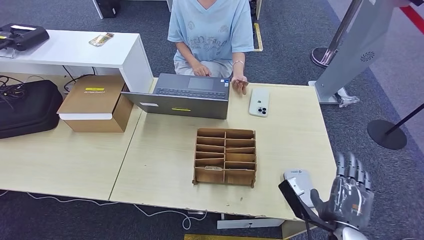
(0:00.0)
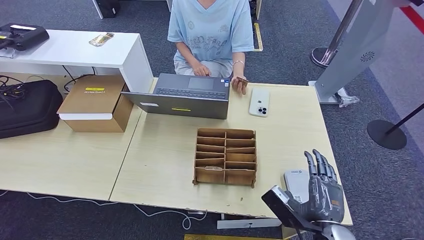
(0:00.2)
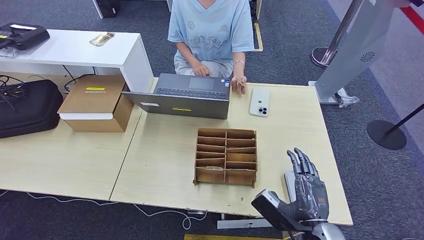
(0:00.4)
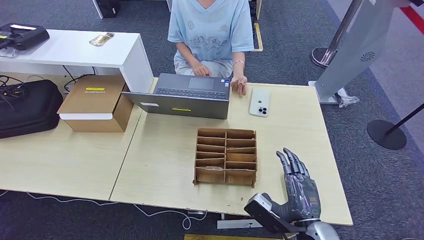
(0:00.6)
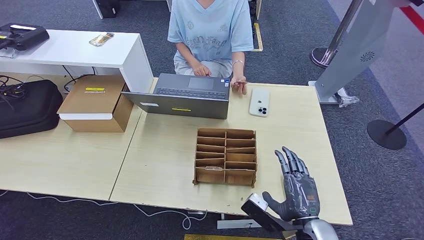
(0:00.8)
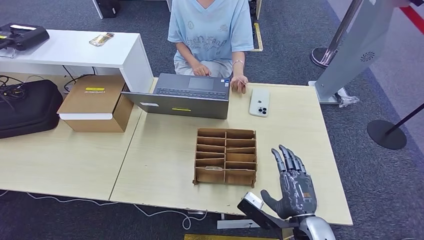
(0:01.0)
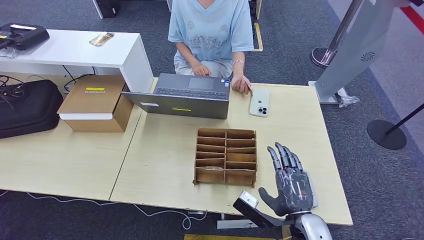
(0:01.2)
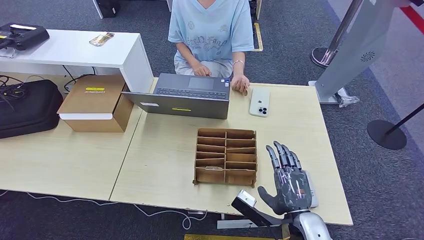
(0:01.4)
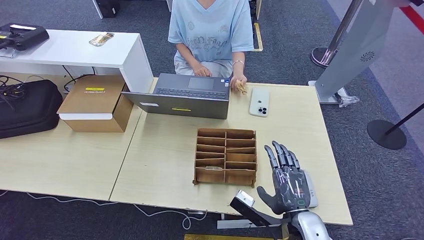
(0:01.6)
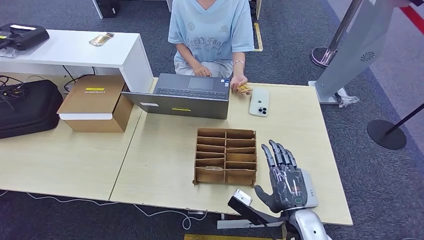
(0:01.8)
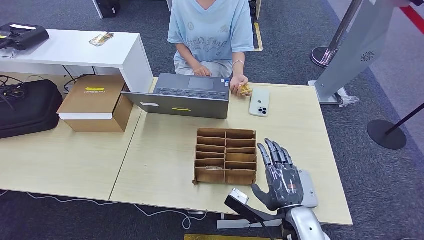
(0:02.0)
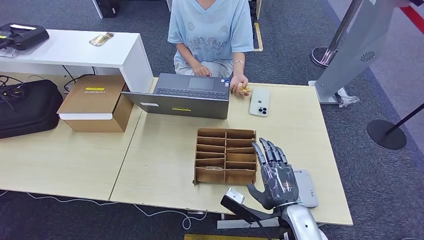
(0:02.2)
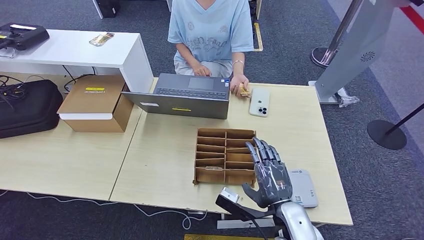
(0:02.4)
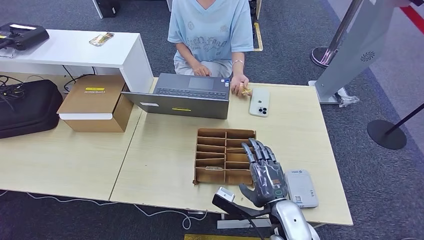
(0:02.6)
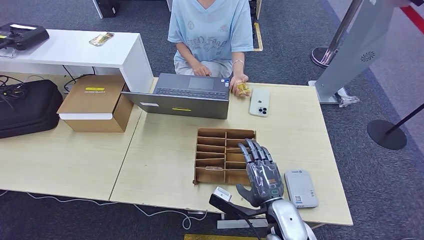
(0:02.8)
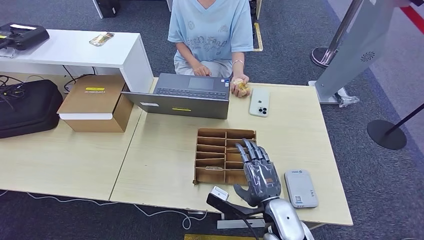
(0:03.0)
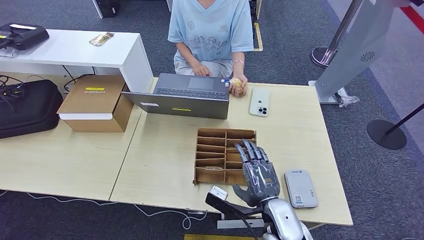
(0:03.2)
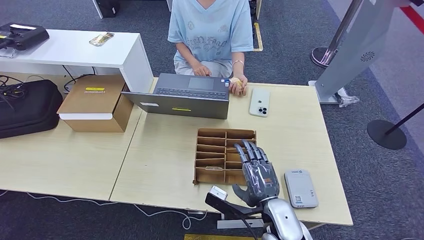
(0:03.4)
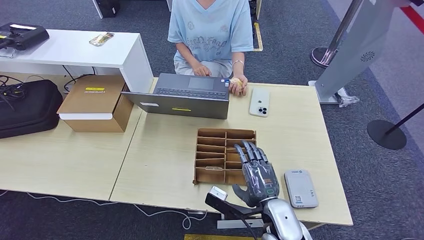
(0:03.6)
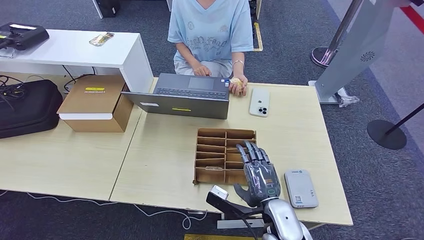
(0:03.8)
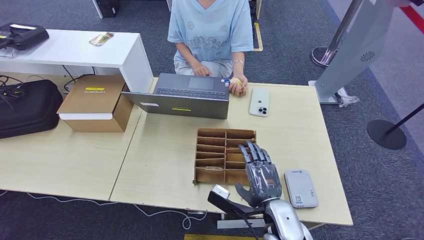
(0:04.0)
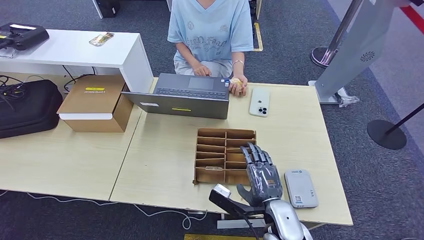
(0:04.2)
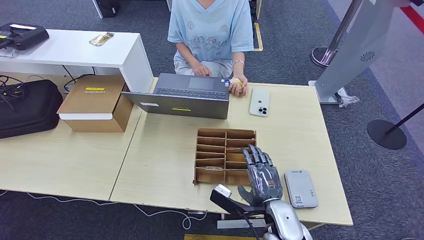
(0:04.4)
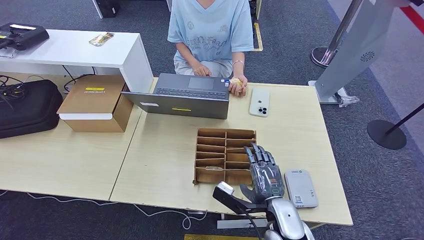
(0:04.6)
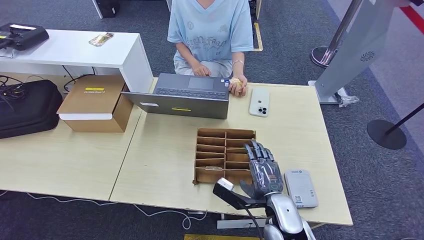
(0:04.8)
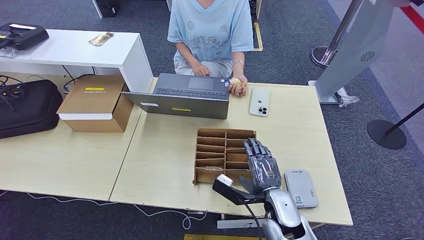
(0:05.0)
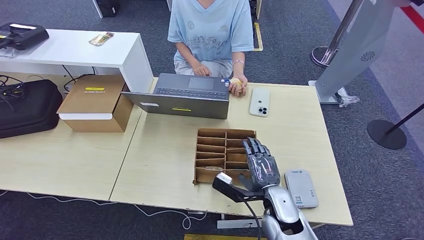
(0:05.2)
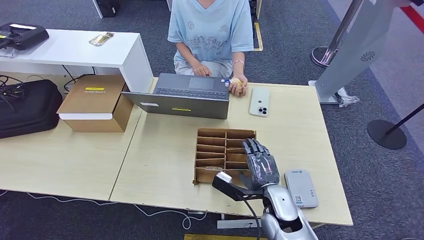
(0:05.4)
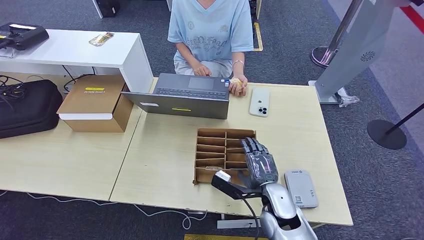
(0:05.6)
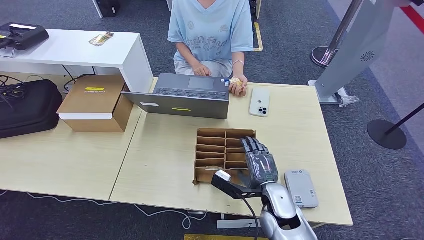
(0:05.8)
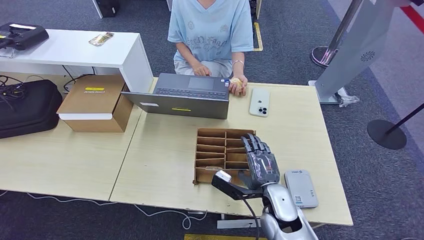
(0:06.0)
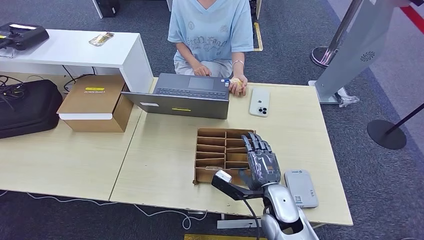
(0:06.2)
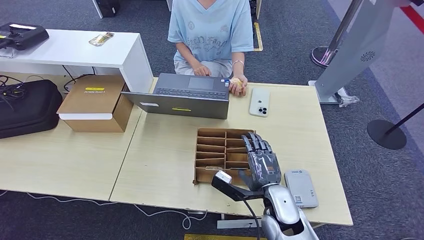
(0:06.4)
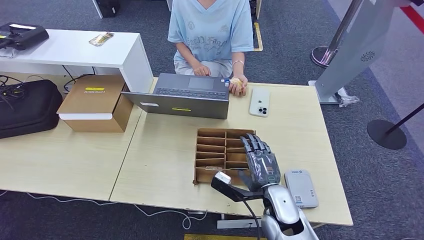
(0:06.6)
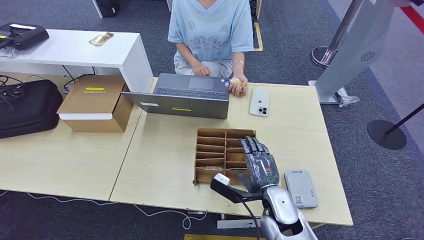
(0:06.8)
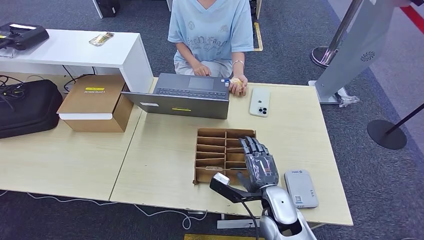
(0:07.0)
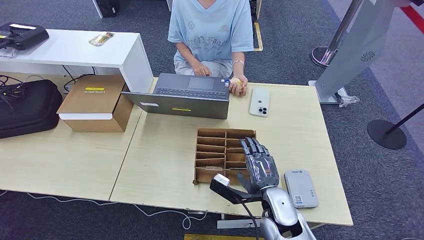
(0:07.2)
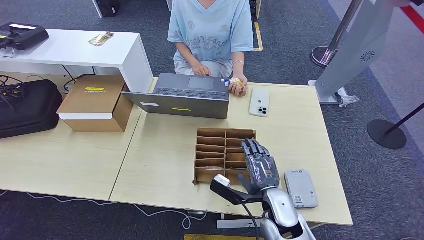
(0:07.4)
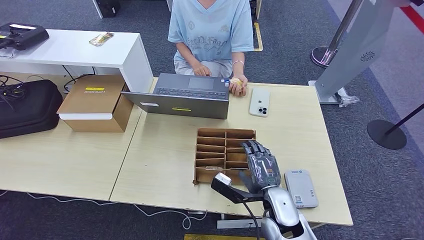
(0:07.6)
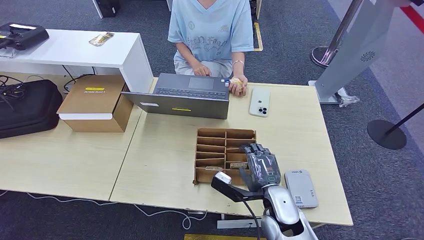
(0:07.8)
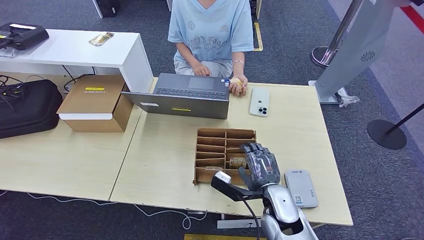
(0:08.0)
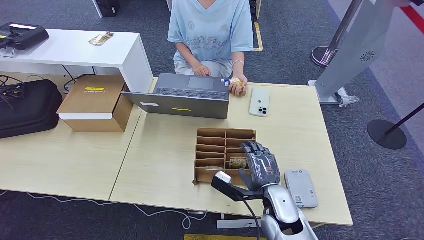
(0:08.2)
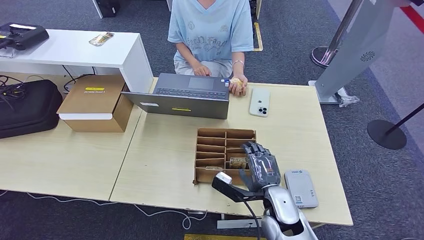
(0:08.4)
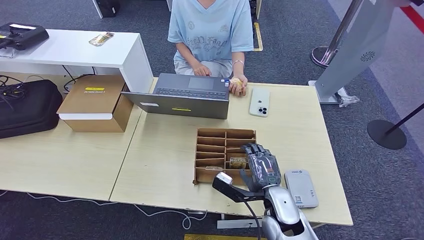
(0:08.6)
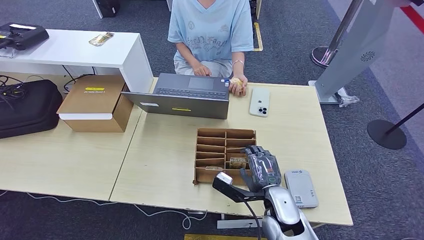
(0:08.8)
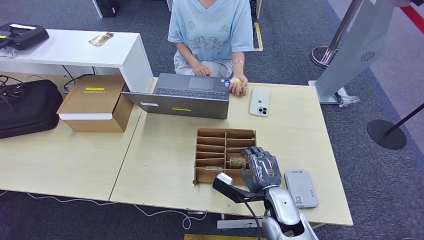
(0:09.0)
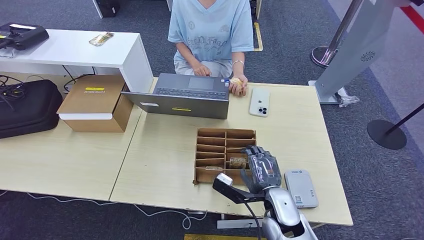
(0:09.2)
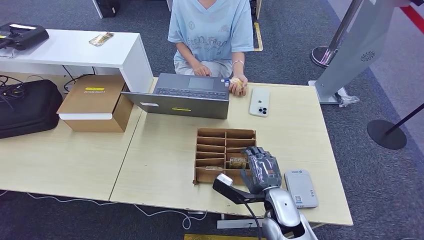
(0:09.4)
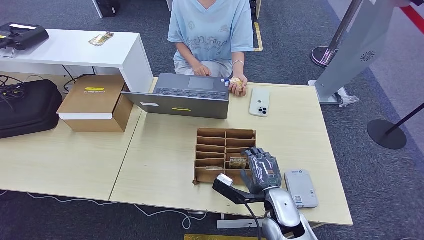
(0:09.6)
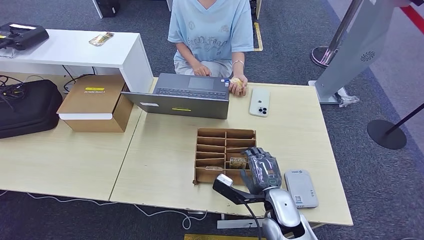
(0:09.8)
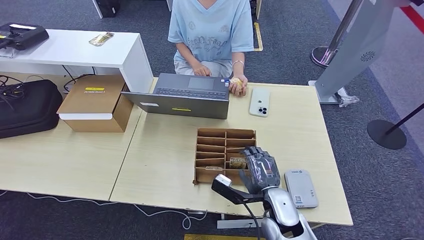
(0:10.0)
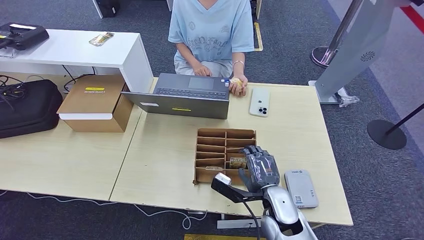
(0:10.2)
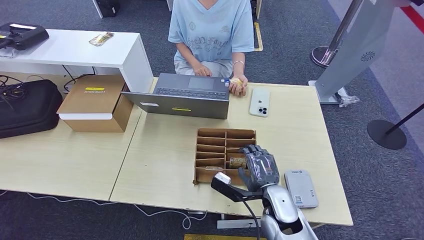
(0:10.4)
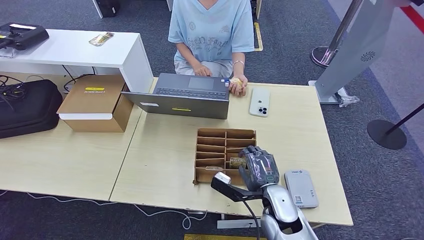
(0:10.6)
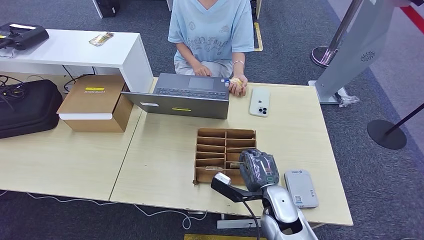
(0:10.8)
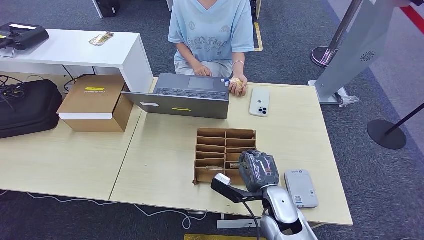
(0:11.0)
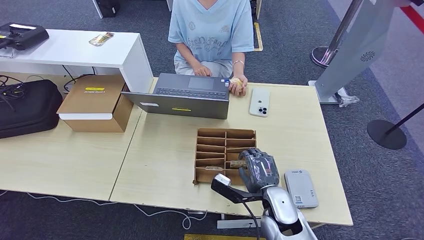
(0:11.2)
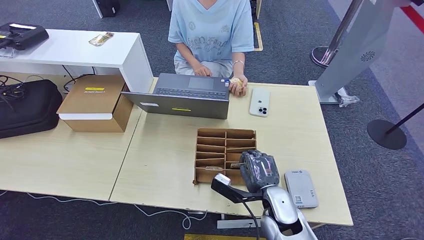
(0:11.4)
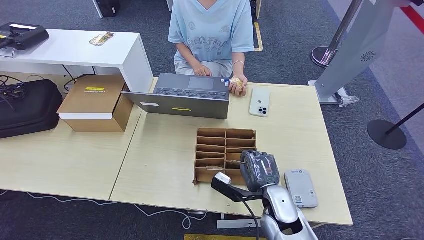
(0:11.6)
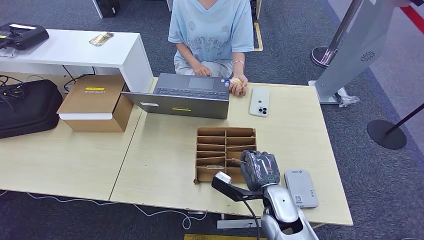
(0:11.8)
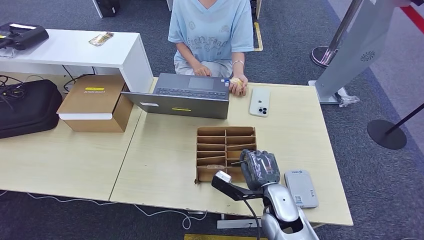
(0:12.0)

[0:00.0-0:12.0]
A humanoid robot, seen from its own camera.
0:00.0 to 0:01.6: The right hand goes some 5 cm to the left.
0:01.6 to 0:03.0: The right hand changes place by some 5 cm.
0:03.0 to 0:06.0: There are only small adjustments of the hands.
0:06.0 to 0:12.0: The two hands keep their place.

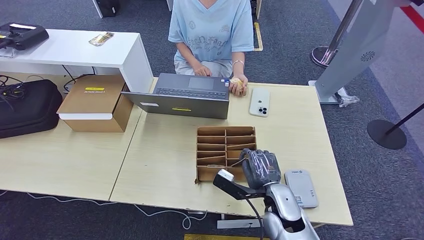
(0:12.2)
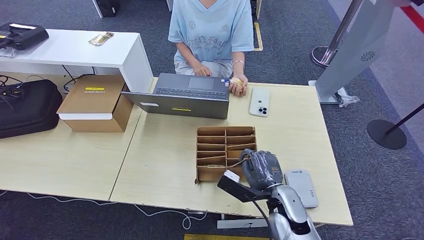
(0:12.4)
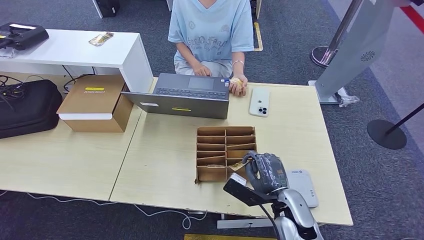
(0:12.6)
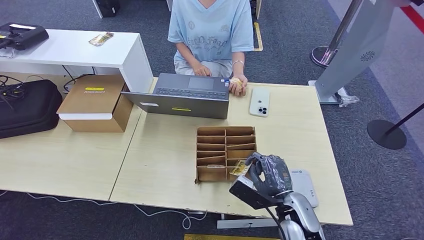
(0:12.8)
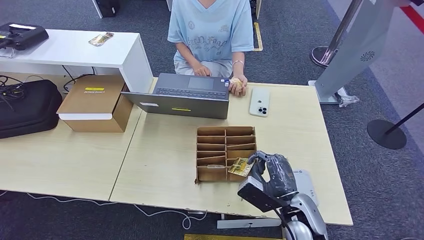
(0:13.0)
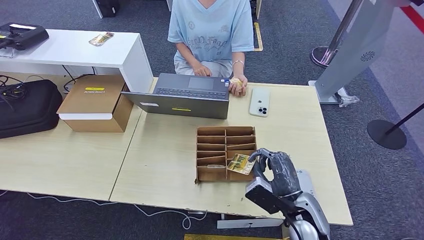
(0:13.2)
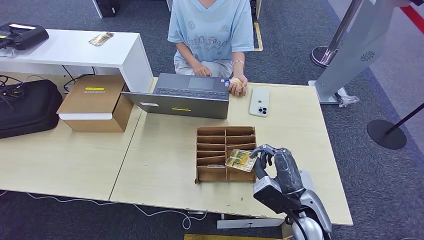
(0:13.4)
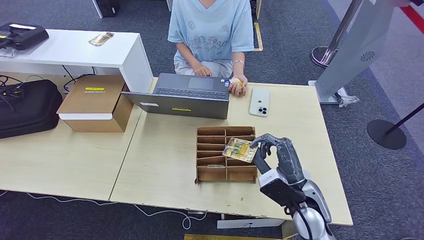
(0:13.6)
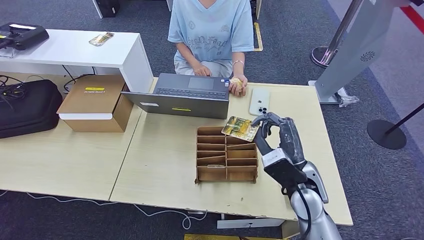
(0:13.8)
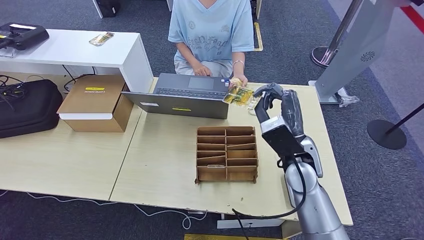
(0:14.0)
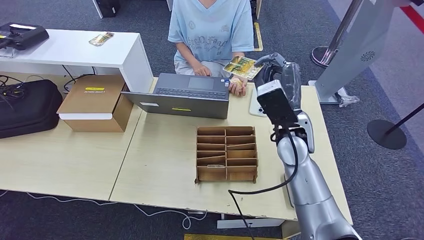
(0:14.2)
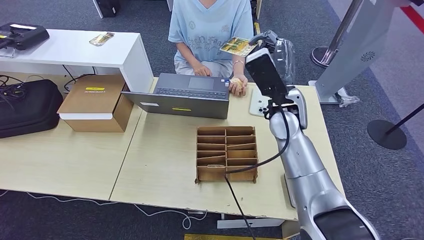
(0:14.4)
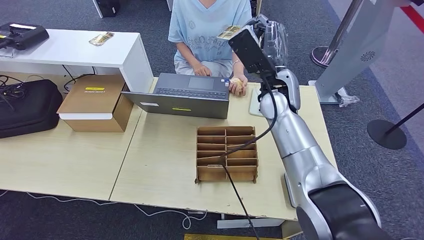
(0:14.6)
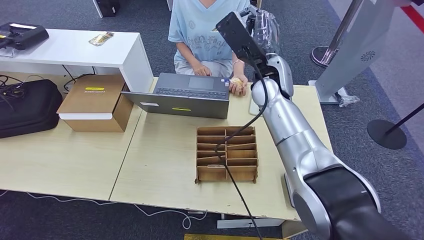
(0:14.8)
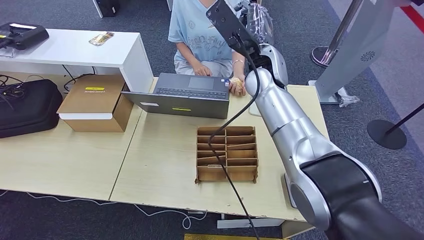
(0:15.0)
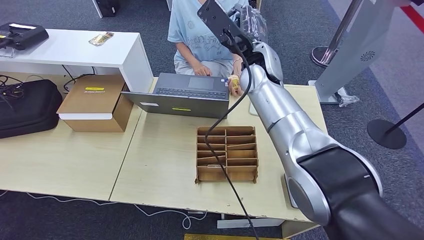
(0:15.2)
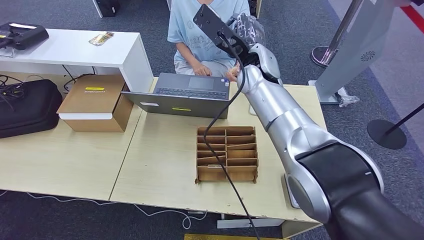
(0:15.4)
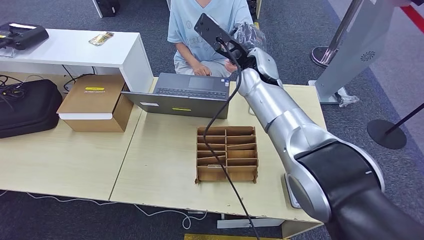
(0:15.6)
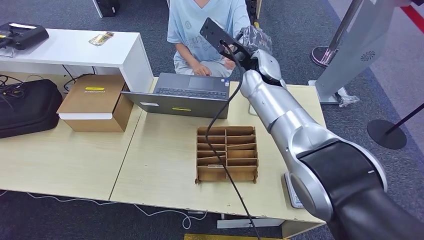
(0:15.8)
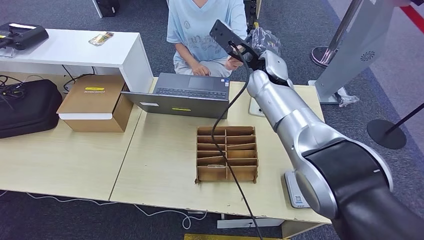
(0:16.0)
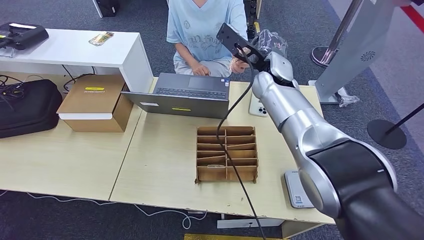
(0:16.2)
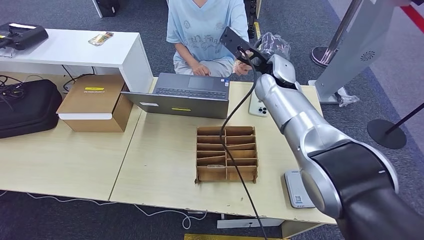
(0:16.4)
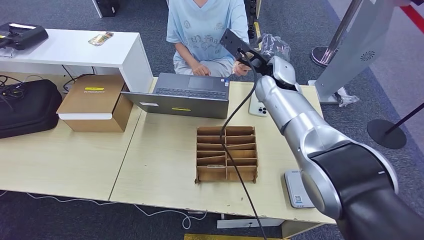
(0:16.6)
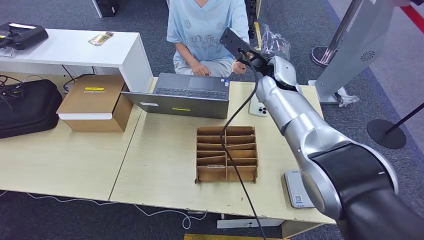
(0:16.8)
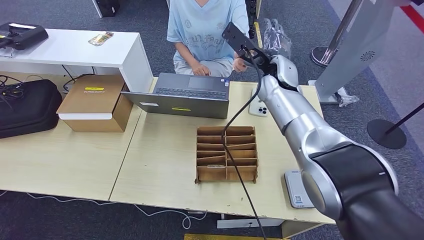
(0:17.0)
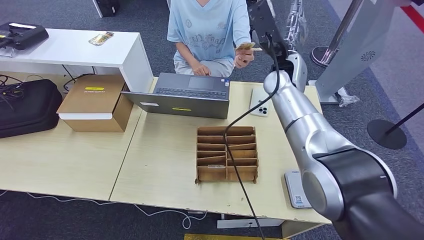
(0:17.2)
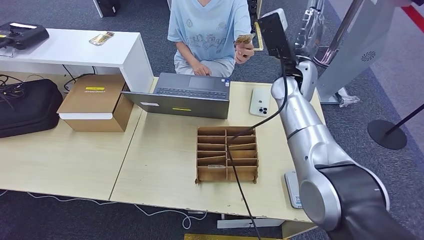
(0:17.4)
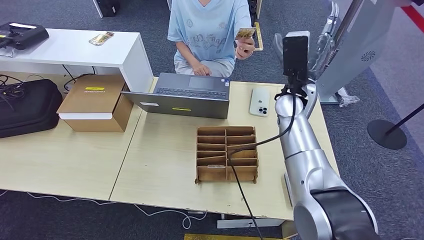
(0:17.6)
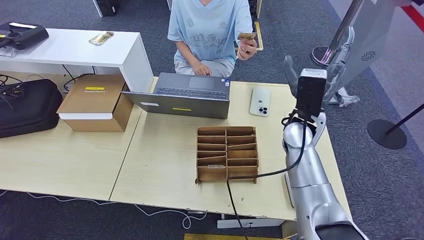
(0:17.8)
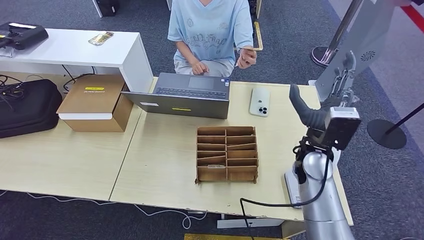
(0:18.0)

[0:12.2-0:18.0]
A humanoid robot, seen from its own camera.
Step, 0:13.4 to 0:18.0: Hand the room key to the person.
0:12.2 to 0:13.6: The right hand is displaced upward by some 5 cm.
0:13.6 to 0:15.0: The right hand is displaced forward and upward by about 30 cm.
0:15.0 to 0:16.6: The right hand changes place by roughly 5 cm.
0:16.6 to 0:18.0: The right hand moves backward, downward and to the right, some 20 cm.
